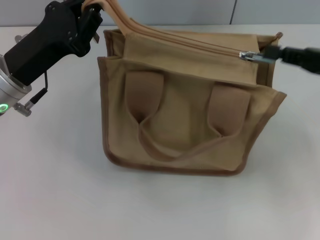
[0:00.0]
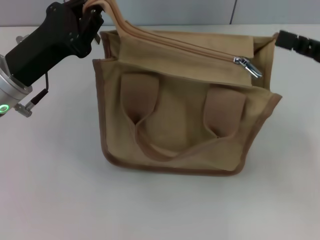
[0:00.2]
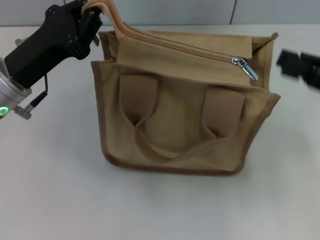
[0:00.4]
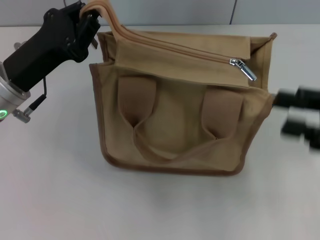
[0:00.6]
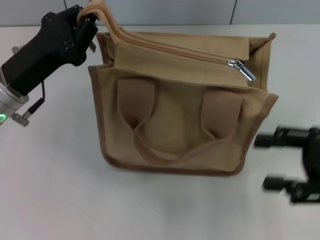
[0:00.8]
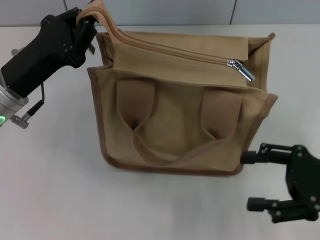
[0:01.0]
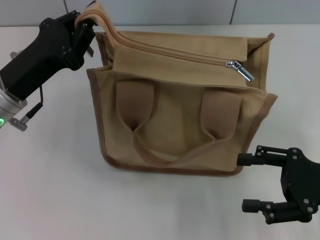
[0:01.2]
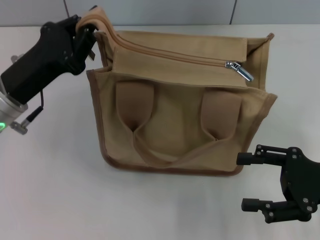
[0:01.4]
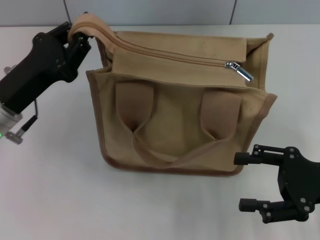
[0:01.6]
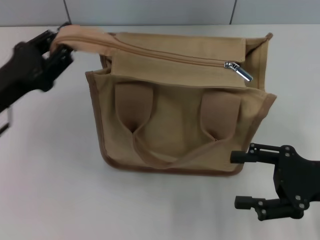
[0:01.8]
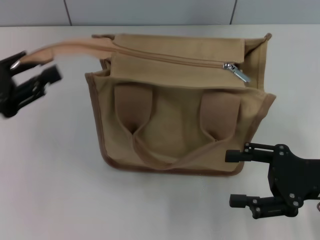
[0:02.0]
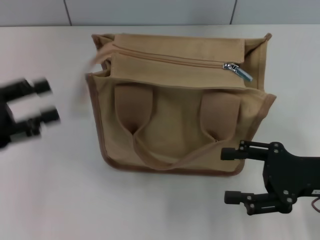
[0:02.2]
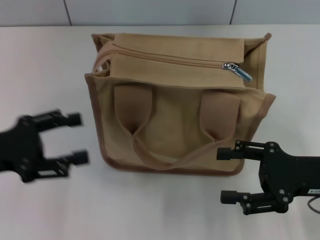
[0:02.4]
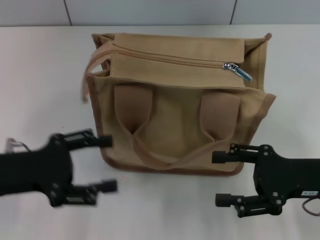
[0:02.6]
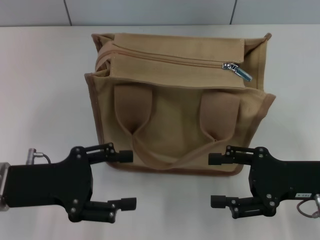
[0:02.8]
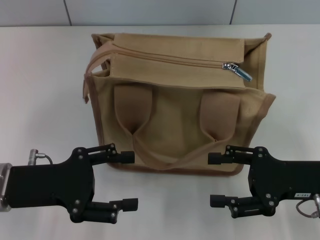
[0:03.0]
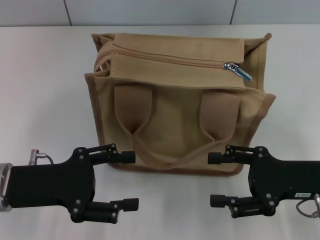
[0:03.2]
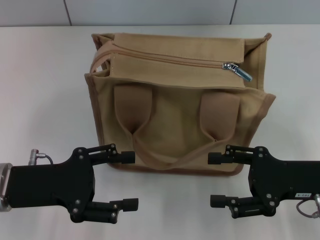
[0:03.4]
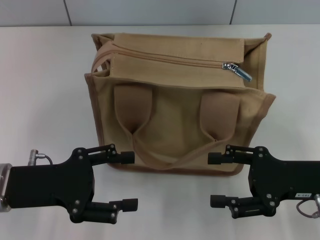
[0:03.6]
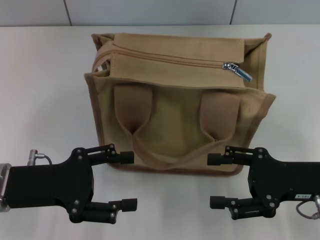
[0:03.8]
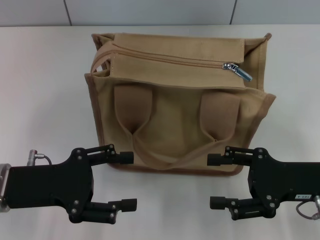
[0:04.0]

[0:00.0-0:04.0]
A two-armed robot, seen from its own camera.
Step, 0.2 to 2.0 s: Grab the zipper with your left hand.
0.0 to 1.4 s: The right gripper heads downward and backward, covering some 10 cm, and opens up.
1.4 to 2.6 s: The left gripper goes some 5 cm backward, and opens its fingers.
2.6 to 4.0 s: The grippers move only a little.

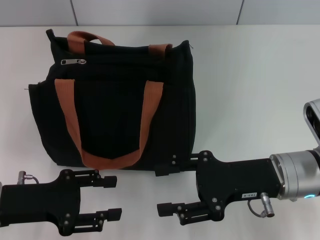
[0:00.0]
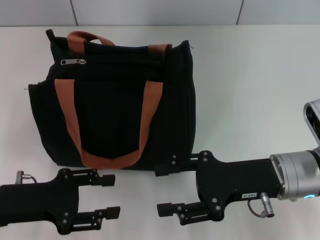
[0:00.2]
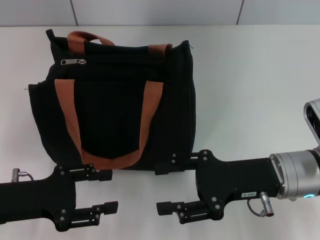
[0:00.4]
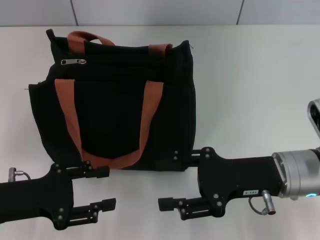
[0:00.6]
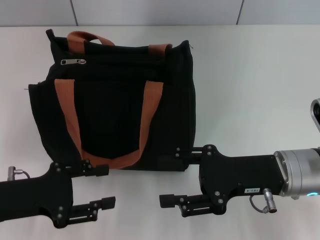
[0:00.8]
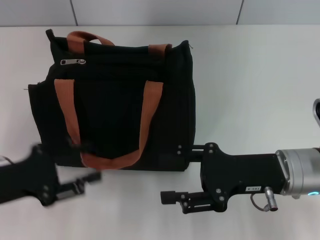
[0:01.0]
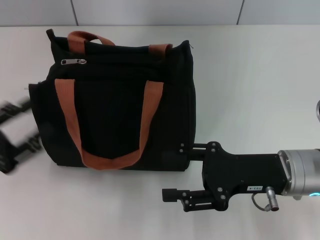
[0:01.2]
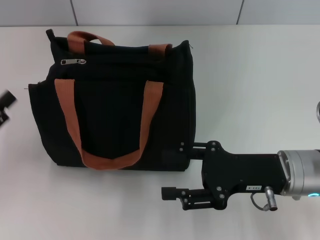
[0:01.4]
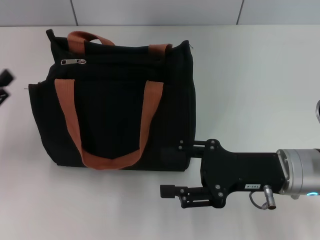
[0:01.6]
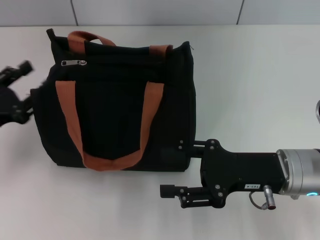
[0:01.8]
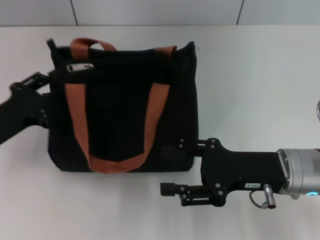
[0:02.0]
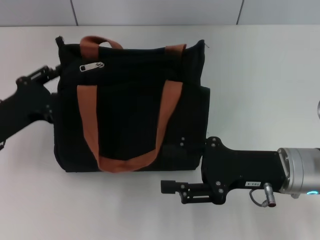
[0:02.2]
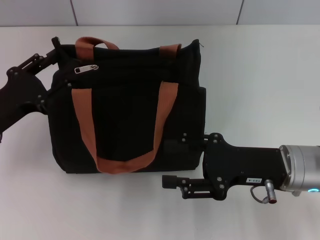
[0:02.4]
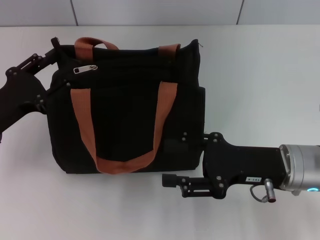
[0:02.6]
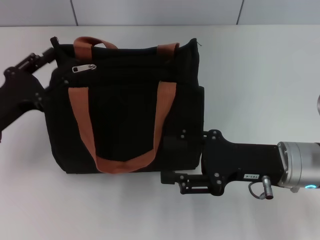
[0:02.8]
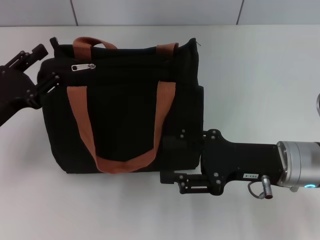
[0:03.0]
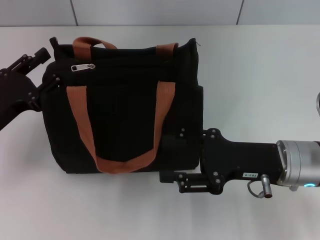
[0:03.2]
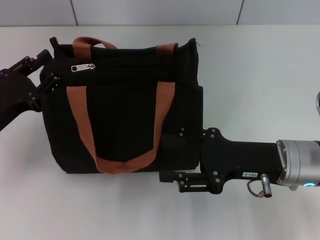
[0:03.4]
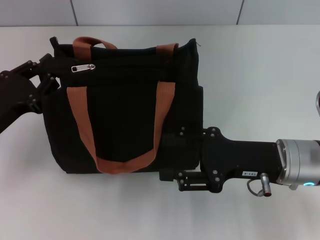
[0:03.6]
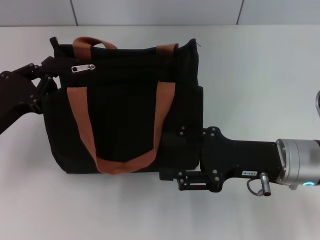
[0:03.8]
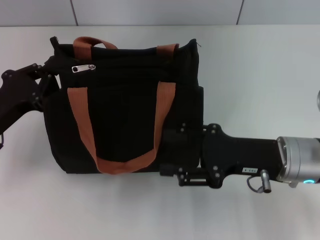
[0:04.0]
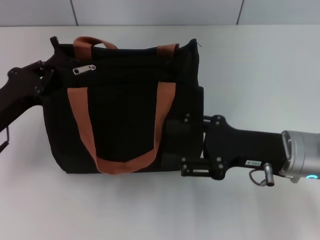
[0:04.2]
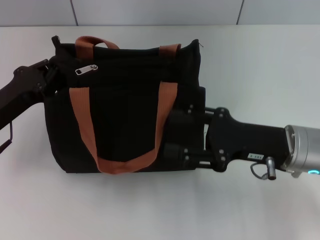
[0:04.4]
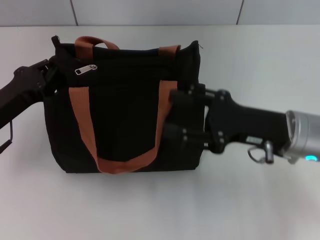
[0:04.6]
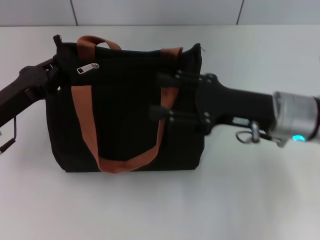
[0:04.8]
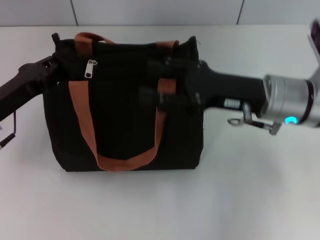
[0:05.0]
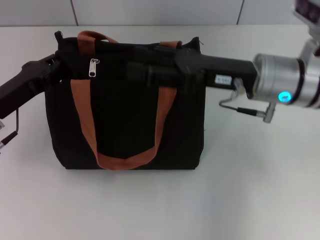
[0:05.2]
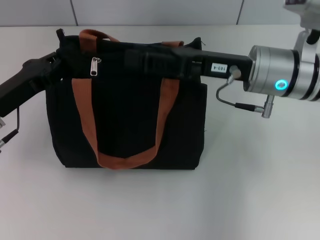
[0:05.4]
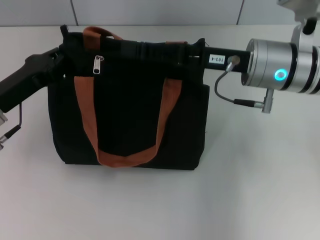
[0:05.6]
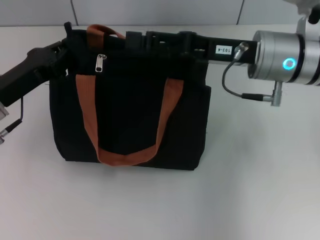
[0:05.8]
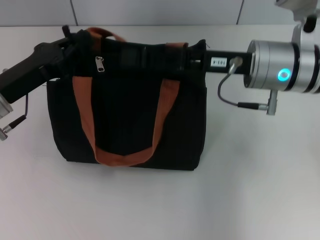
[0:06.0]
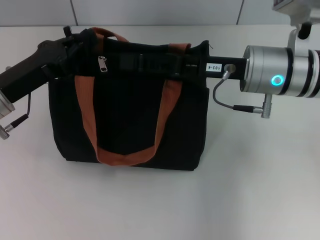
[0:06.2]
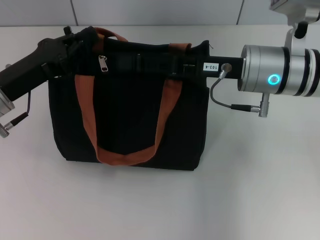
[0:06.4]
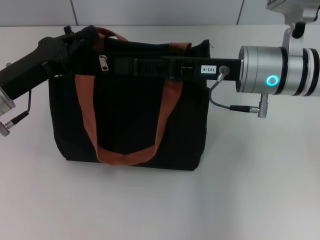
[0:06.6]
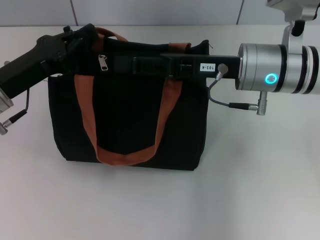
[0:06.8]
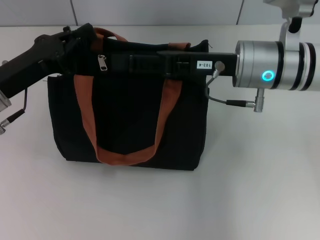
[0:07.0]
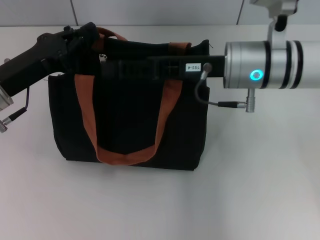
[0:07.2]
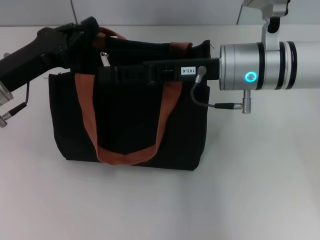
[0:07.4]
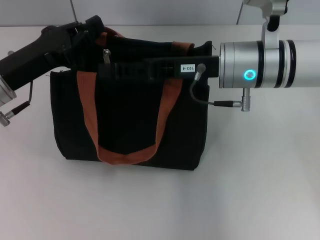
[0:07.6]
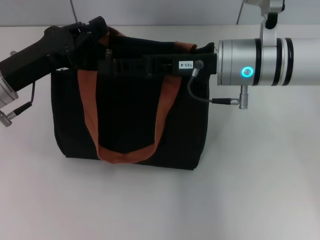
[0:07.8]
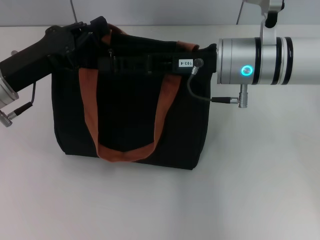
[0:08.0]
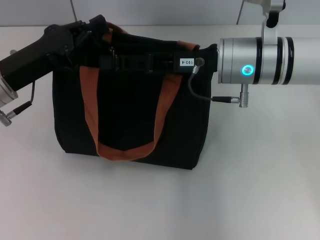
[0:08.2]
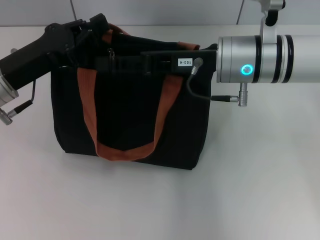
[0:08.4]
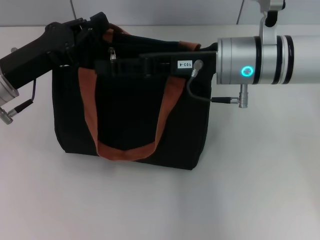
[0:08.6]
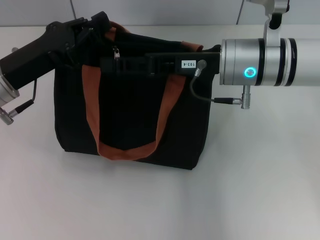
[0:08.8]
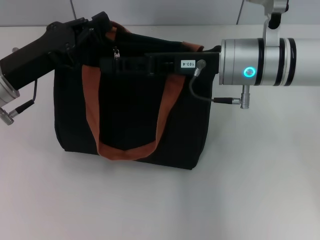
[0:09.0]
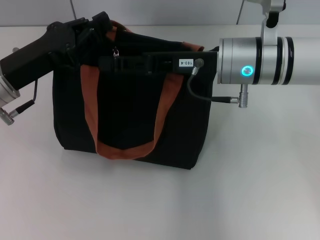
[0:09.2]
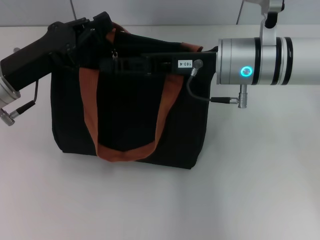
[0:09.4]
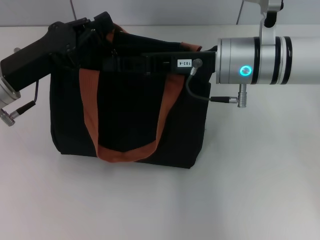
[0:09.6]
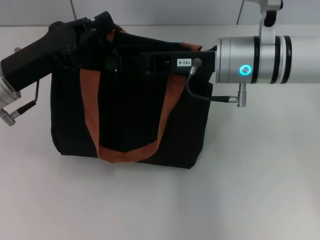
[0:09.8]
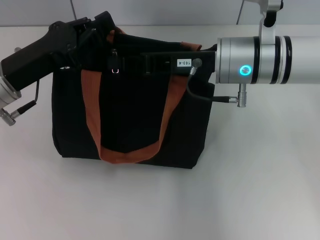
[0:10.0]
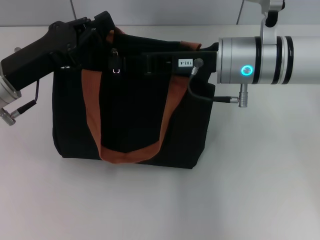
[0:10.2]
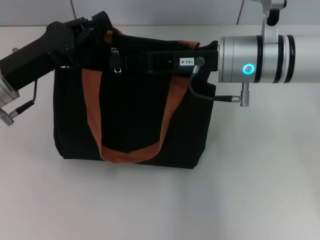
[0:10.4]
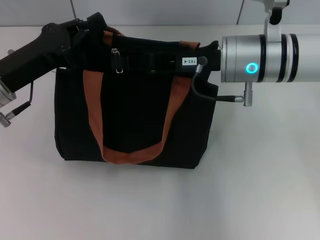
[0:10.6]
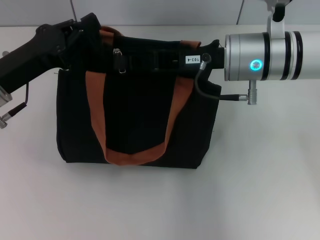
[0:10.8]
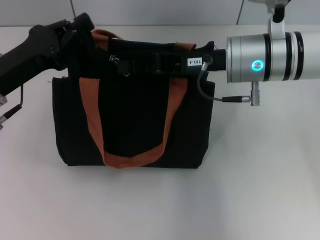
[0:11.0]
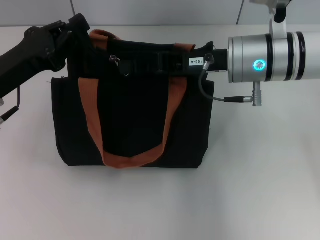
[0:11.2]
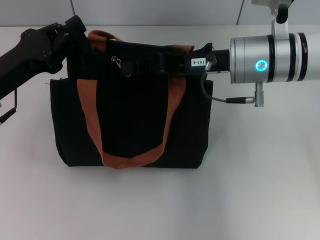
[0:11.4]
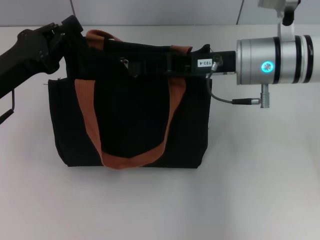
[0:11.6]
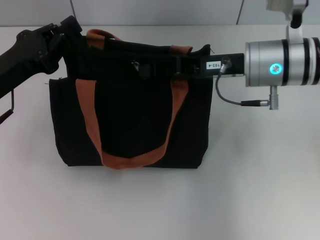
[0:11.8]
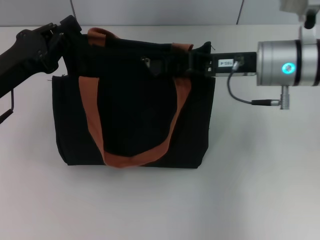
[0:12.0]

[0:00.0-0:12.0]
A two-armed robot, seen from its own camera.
0.0 to 1.6 s: The left gripper shifts roughly 5 cm to the left.
1.6 to 3.0 s: The left gripper moves about 5 cm.
3.0 to 4.4 s: The left gripper closes its fingers.
4.4 to 6.0 s: The right gripper shifts roughly 10 cm forward, upward and to the left.
6.0 to 7.6 s: The grippers make only small movements.
7.6 to 9.0 s: The two grippers keep their place.
9.0 to 10.4 s: The right gripper closes its fingers.
10.4 to 12.0 s: The right gripper heads to the right, covering about 5 cm.

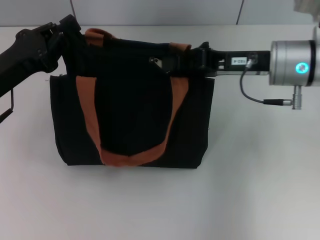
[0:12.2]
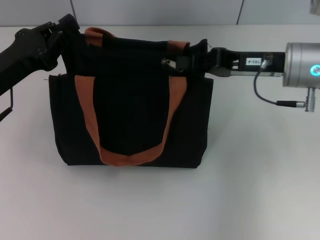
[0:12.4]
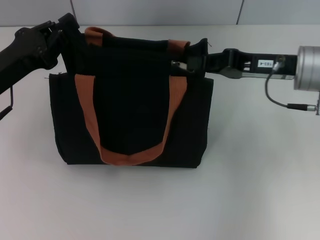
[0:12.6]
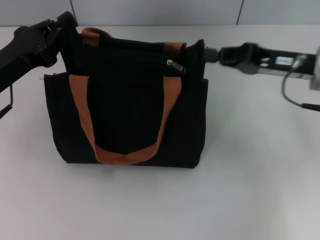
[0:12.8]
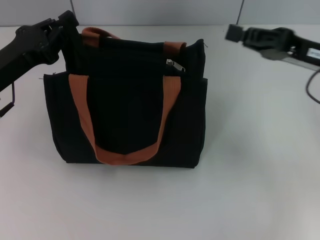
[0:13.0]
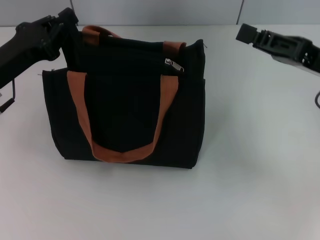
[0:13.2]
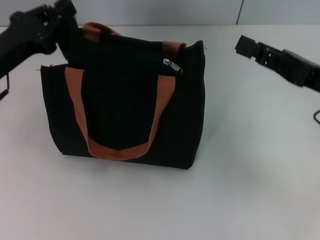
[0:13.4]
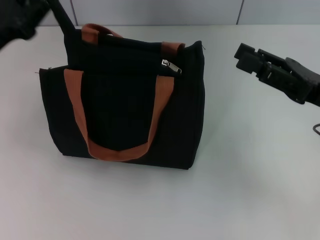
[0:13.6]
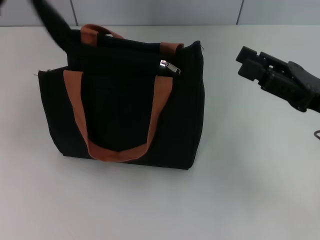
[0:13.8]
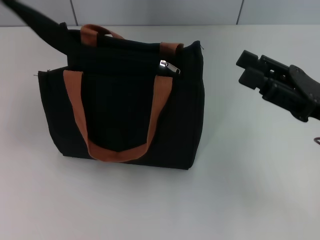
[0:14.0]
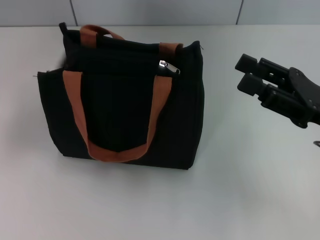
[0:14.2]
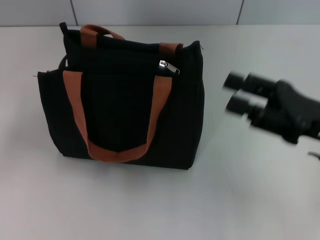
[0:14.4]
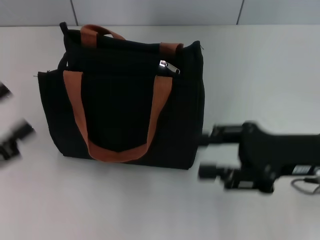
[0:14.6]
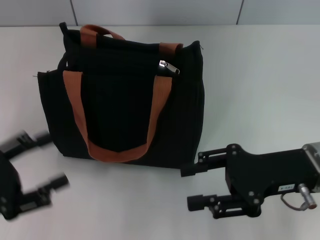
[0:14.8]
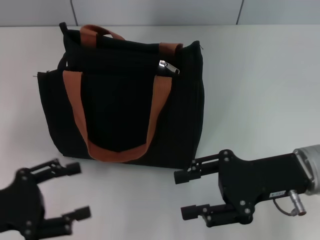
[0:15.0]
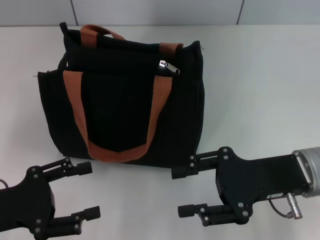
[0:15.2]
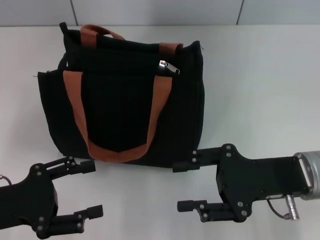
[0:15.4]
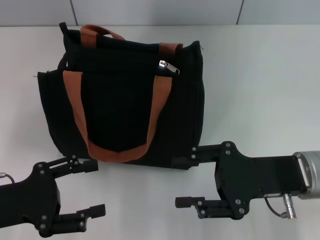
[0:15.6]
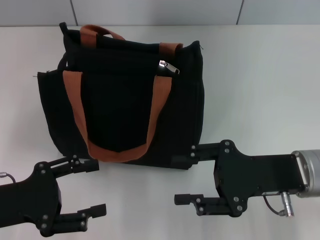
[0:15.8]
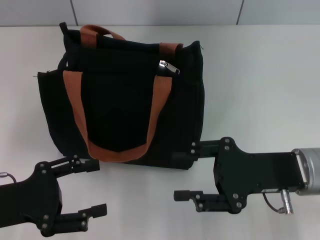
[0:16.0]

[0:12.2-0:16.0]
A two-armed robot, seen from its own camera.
Step, 12.8 to 14.0 s: Grab the zipper with your left hand.
12.2 to 13.4 s: The right gripper travels to the right and backward by some 10 cm.
13.4 to 14.8 s: The left gripper heads backward, covering about 15 cm, and opens its fingers, while the right gripper moves approximately 5 cm, and opens its fingers.

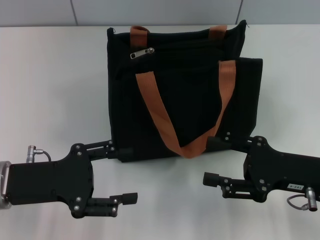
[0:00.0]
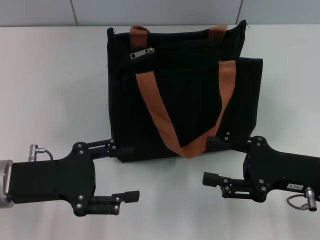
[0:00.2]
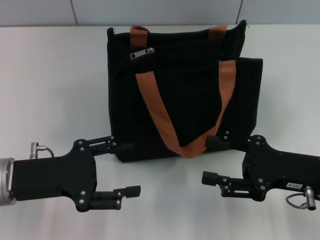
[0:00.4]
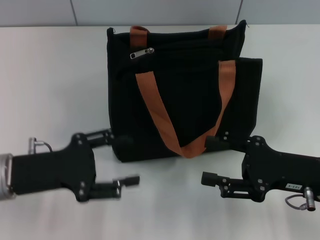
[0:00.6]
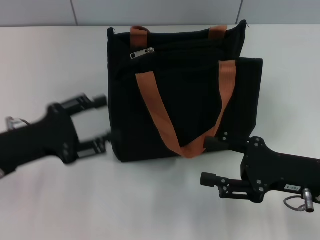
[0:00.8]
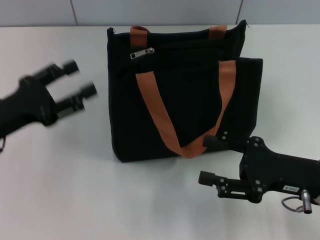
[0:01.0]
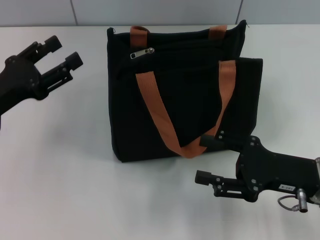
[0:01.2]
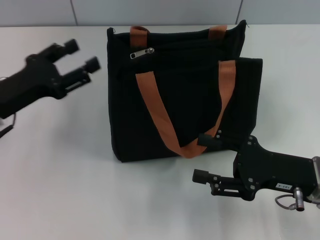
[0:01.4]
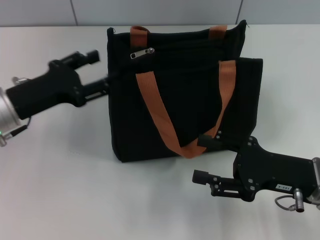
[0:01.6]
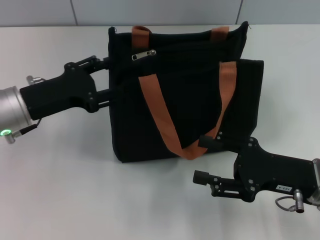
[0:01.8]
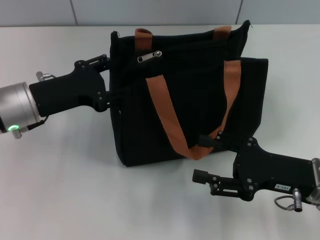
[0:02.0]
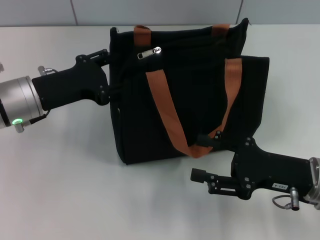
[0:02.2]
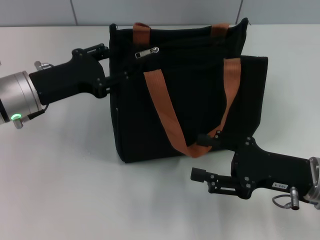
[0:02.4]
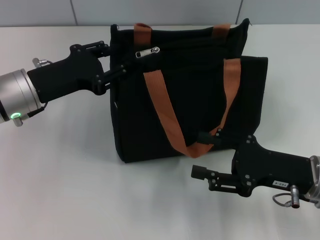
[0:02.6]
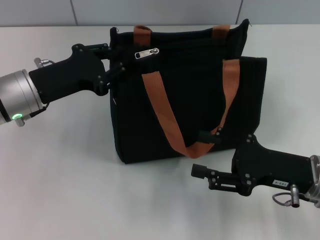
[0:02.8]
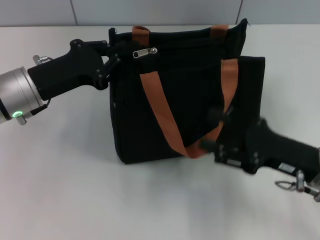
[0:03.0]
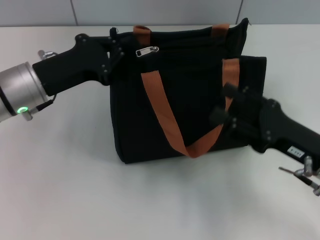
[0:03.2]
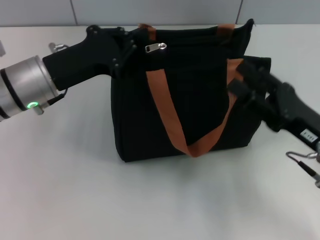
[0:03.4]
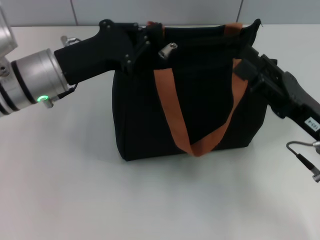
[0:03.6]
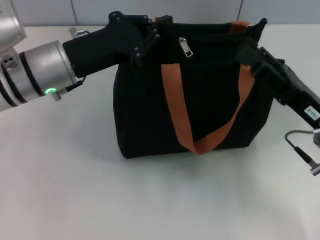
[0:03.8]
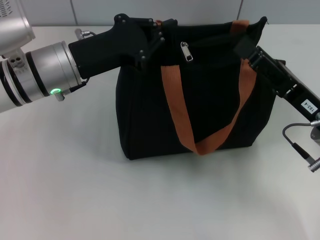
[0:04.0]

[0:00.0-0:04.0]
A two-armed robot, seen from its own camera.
0.0 to 1.4 s: The left gripper shifts about 5 cm forward.
1.4 to 2.6 s: The left gripper ends up some 5 cm from where it was.
2.6 to 4.0 s: The left gripper is displaced to the right by some 5 cm, and closes.
